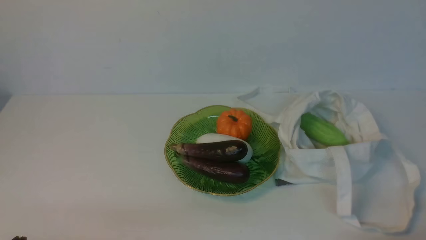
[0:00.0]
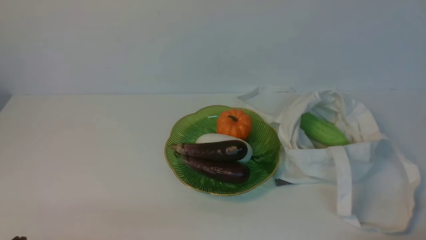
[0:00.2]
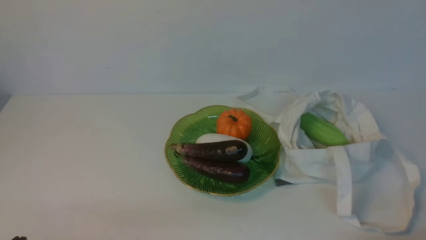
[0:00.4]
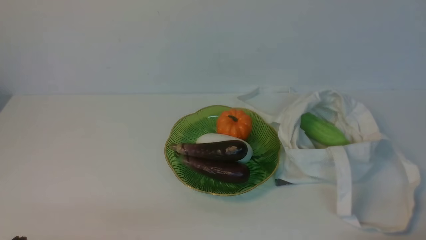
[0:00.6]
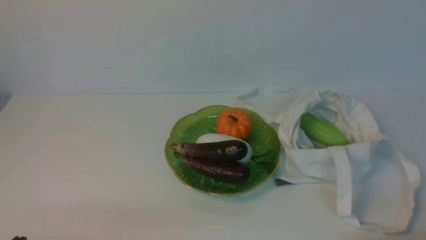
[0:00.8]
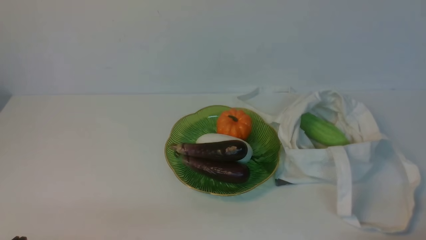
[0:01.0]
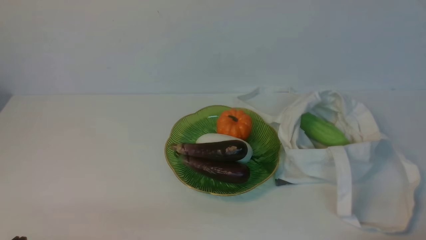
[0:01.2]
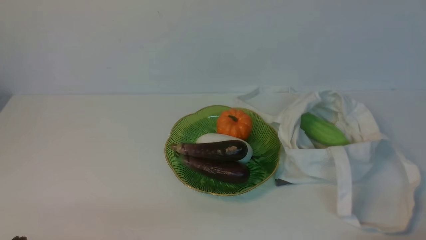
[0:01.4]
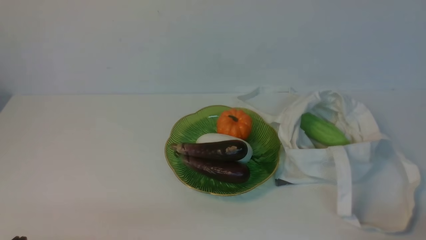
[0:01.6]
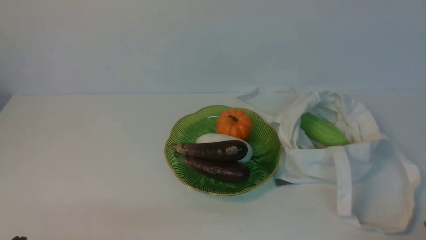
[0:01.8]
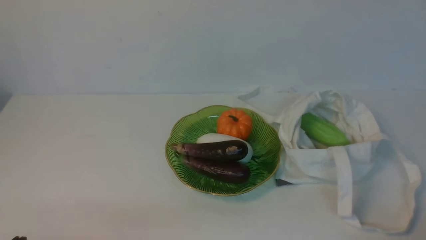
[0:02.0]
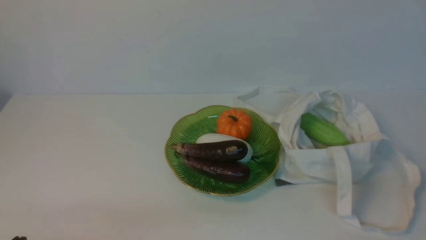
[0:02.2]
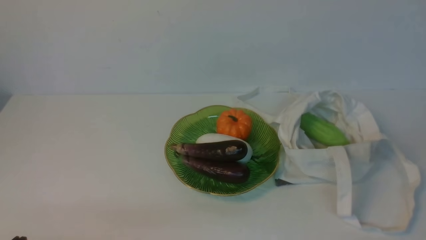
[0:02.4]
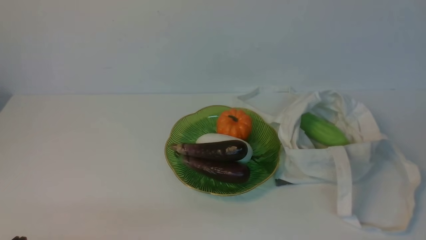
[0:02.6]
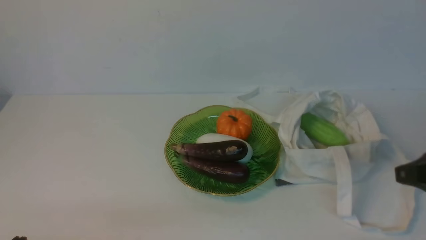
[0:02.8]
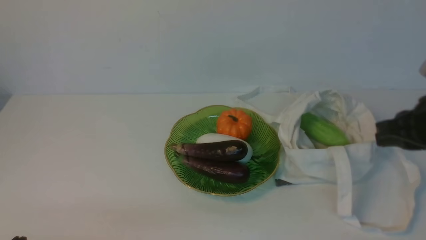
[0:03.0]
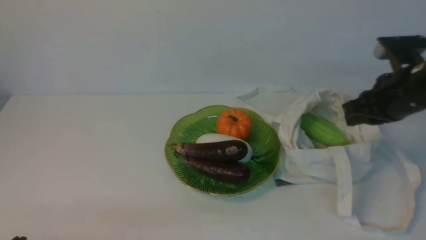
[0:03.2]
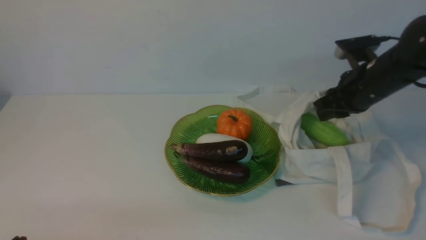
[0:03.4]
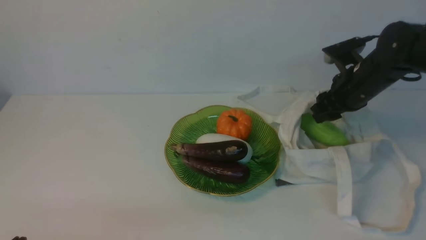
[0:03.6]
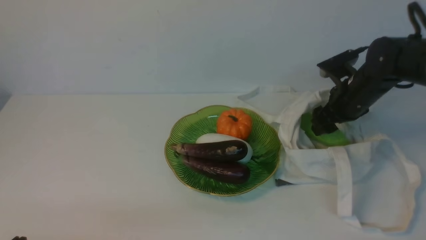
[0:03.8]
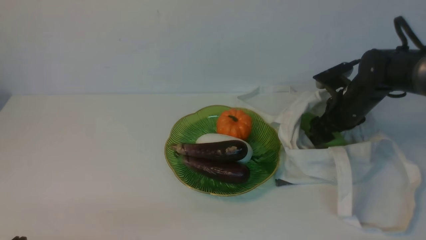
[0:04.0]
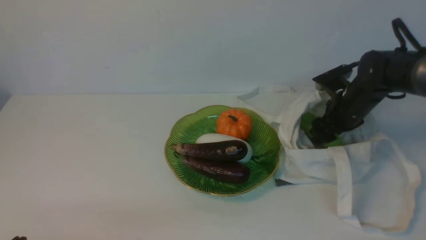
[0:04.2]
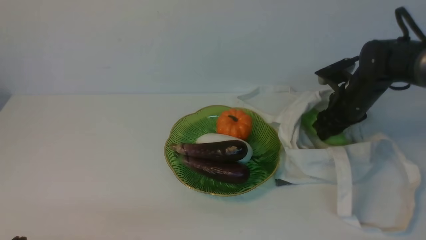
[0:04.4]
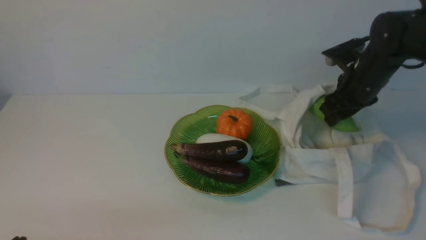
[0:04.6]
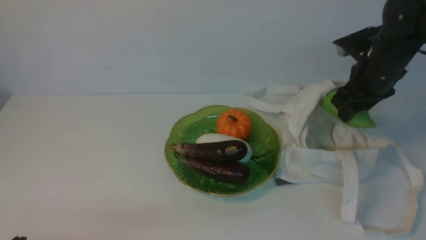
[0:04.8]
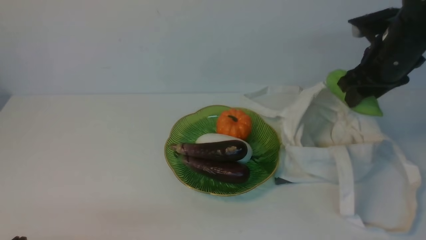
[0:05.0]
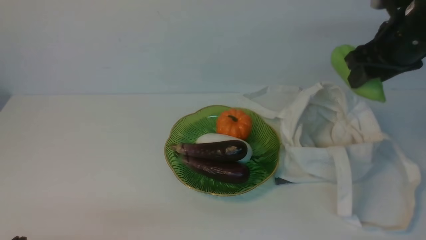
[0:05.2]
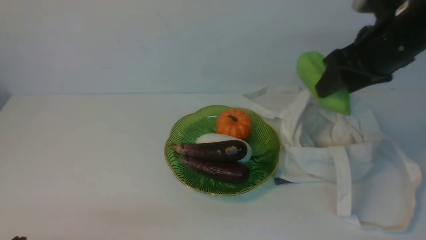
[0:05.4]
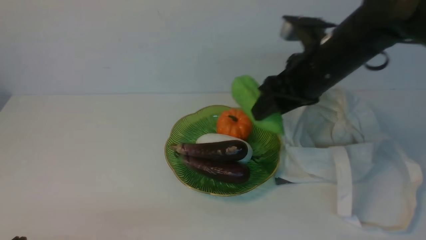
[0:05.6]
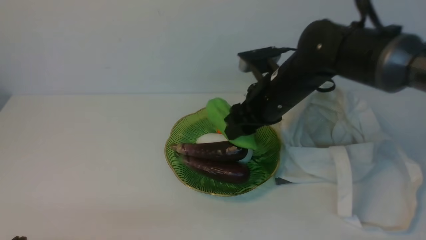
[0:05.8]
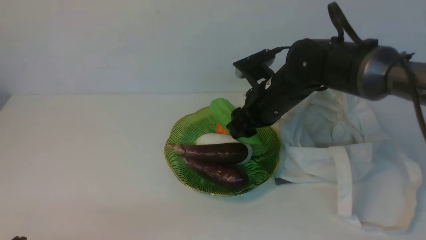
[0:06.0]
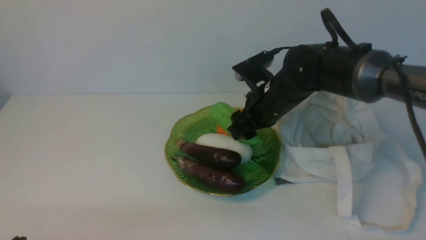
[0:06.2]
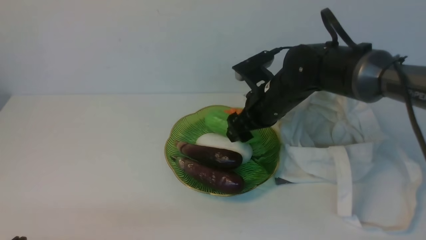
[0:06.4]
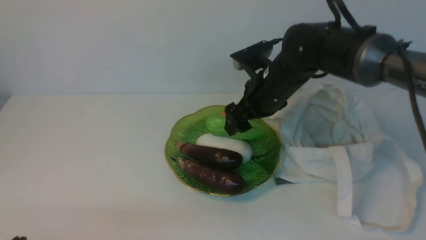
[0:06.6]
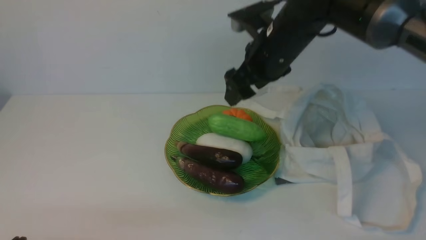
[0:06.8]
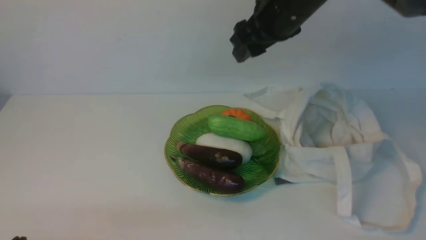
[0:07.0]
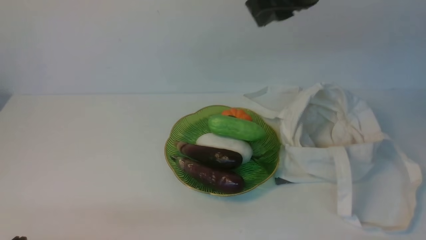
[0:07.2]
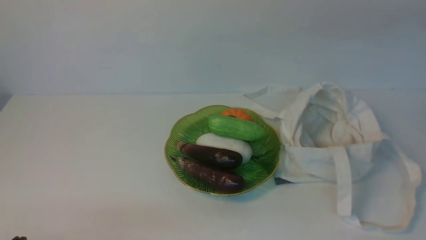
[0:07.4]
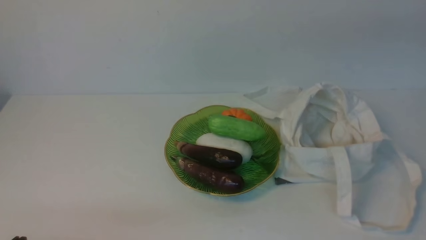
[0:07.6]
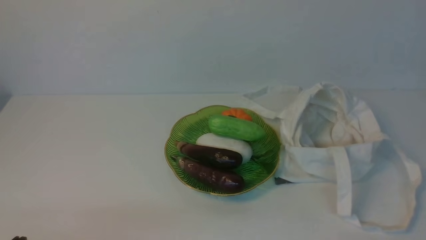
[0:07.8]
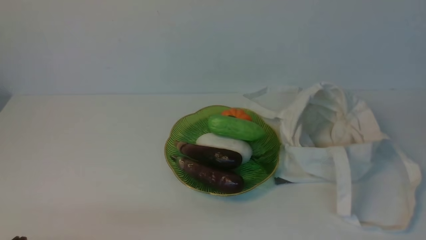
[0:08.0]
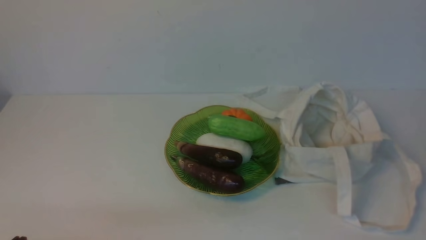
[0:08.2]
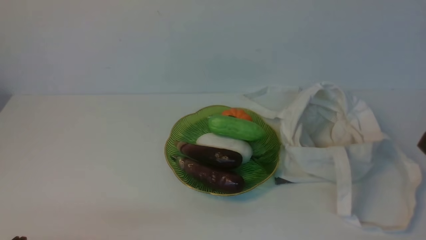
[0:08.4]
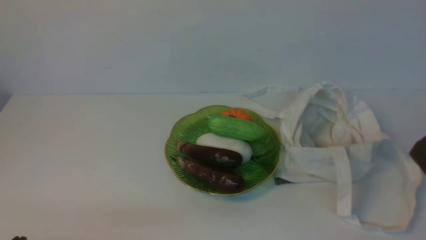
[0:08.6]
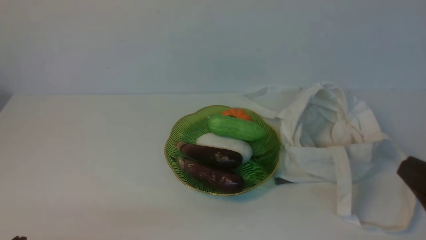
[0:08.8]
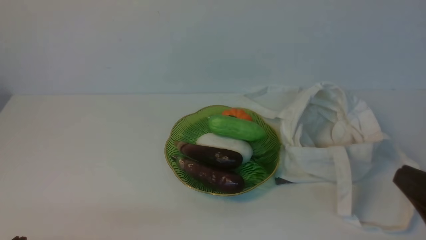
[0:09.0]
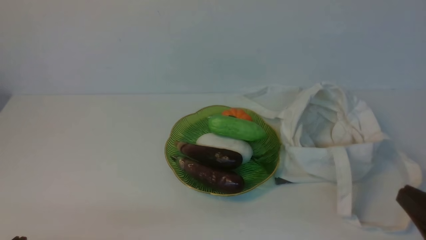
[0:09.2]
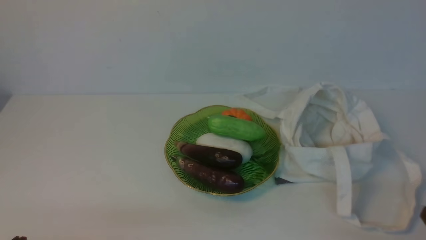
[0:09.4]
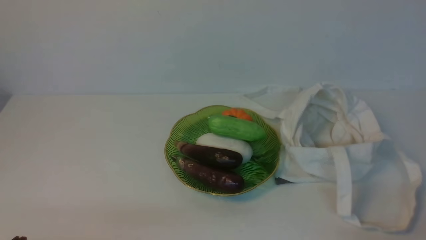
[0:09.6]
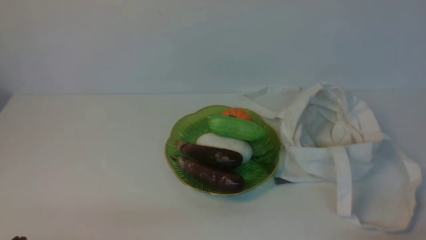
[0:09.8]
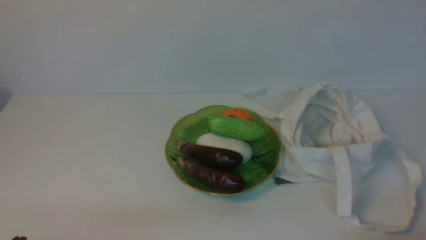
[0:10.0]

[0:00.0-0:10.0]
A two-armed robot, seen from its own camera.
Task of the whole recording: take vegetables from cloth bag on white table place on plate.
Step, 0:00.0 to 0:04.2: Grasp the bitter melon with right gripper.
Step, 0:04.4 to 0:06.6: Place the bitter melon on the plate with right gripper.
0:01.4 to 0:02.8: The right gripper heads upward and forward, covering some 15 cm.
0:02.8 to 0:04.2: The right gripper heads forward and downward, covering approximately 30 cm, and opens.
0:04.2 to 0:05.8: The right gripper is displaced to the left, upward and backward by about 15 cm.
0:05.8 to 0:07.2: The right gripper travels upward by about 15 cm, and opens, then closes again.
0:07.2 to 0:08.6: The right gripper travels backward, to the right and downward by roughly 30 cm, and closes.

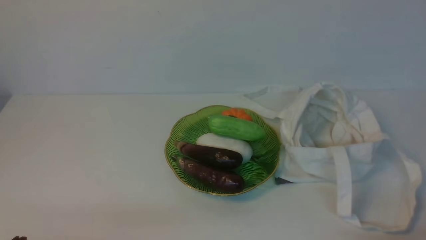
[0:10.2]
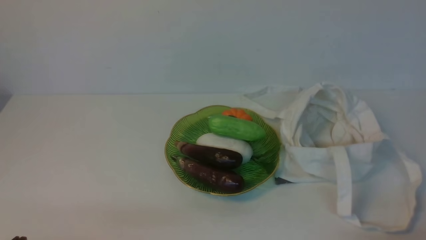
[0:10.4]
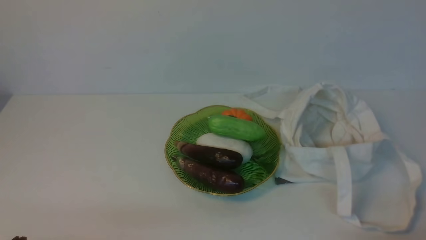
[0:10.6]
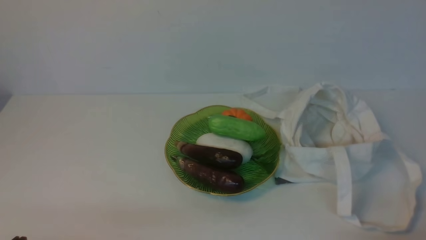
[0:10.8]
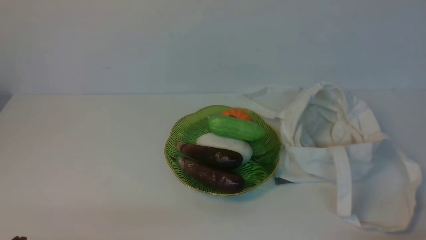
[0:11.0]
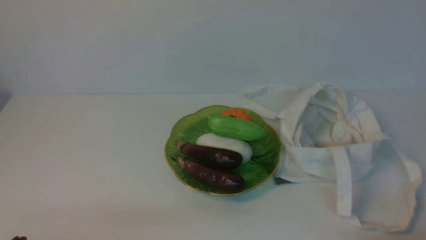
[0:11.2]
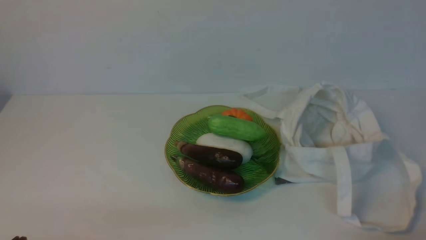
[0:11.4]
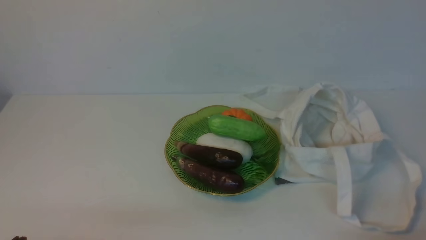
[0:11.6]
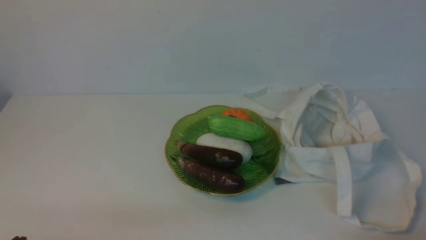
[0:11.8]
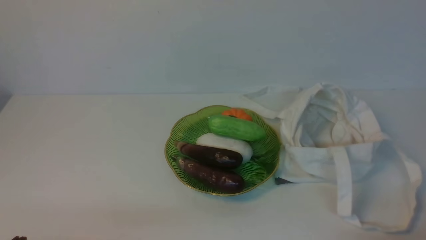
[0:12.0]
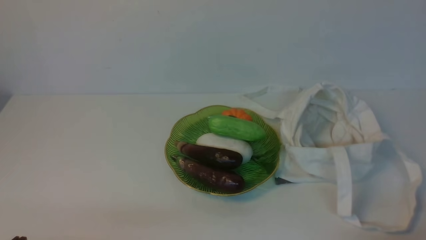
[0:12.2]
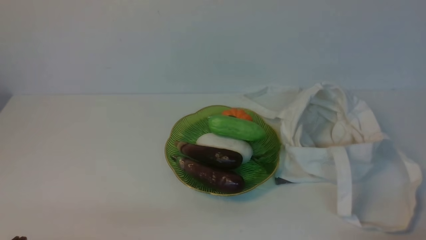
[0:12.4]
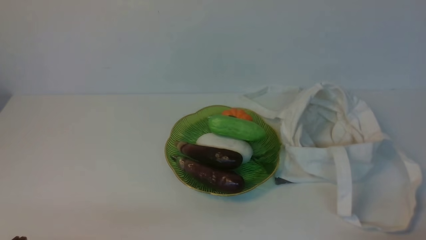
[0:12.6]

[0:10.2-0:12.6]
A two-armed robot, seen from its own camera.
Task of the whole recording: take vegetables from cloth bag on white table place on plate.
0:10.2 to 0:12.6: Both grippers stay put.

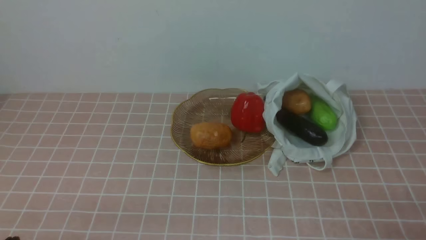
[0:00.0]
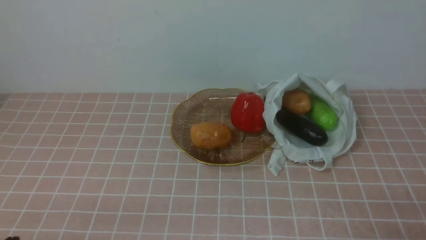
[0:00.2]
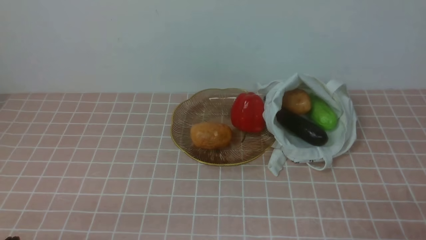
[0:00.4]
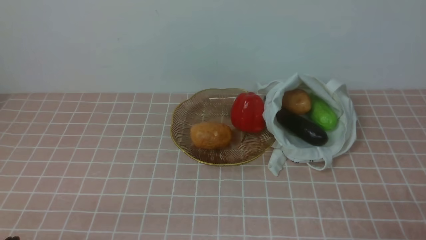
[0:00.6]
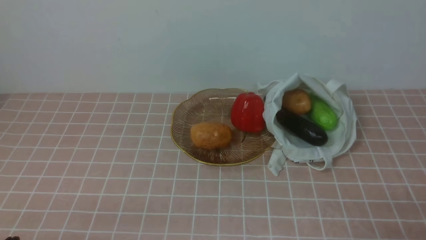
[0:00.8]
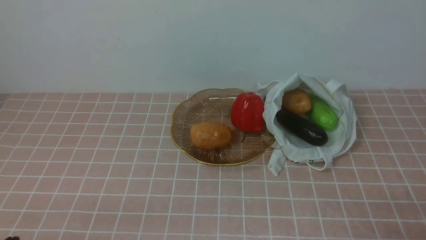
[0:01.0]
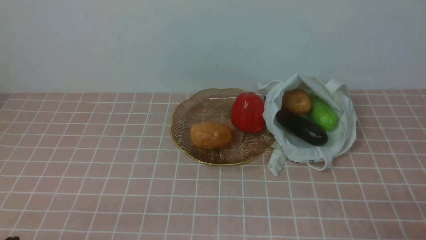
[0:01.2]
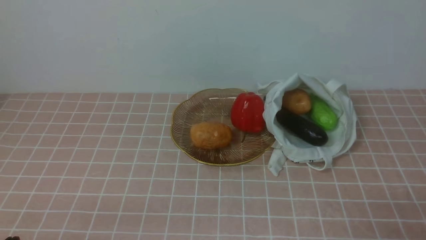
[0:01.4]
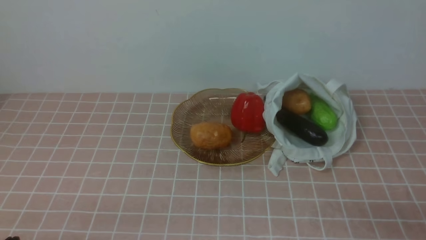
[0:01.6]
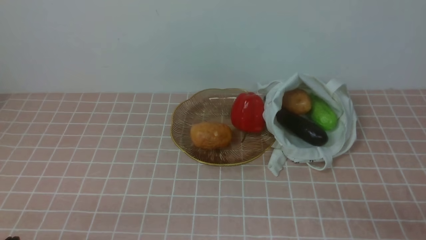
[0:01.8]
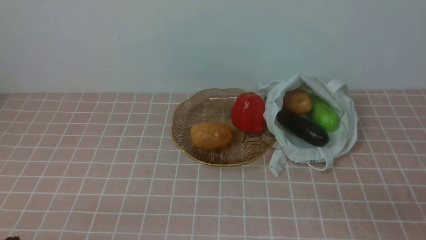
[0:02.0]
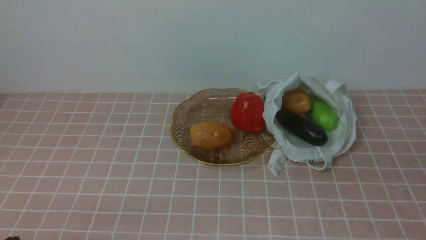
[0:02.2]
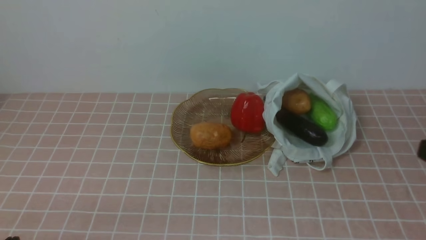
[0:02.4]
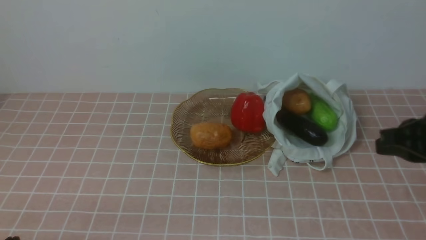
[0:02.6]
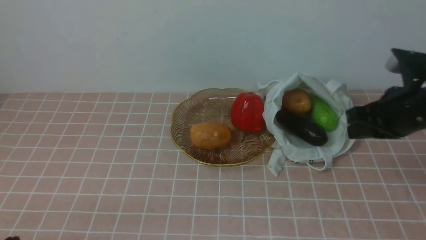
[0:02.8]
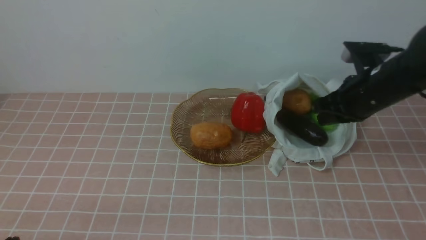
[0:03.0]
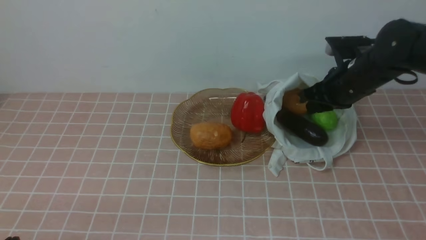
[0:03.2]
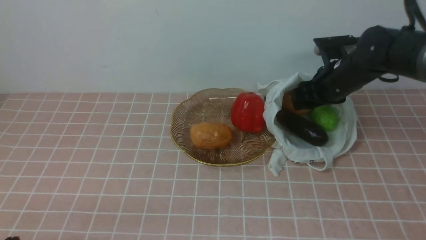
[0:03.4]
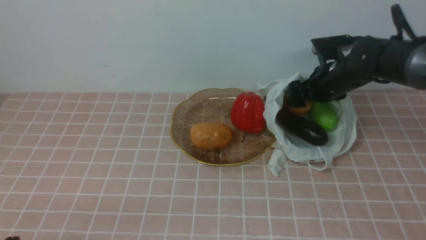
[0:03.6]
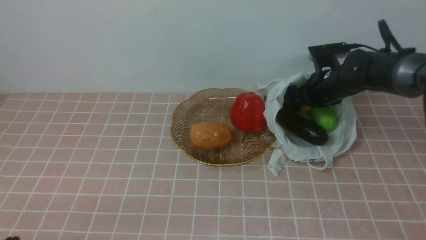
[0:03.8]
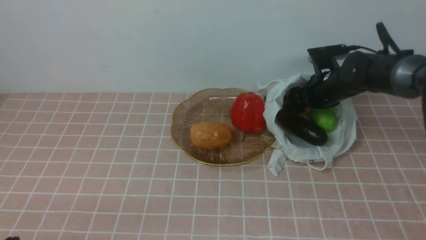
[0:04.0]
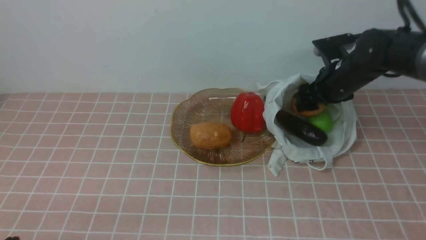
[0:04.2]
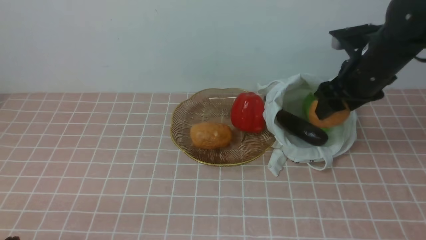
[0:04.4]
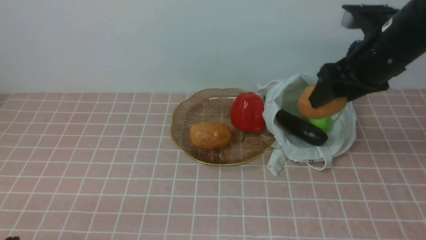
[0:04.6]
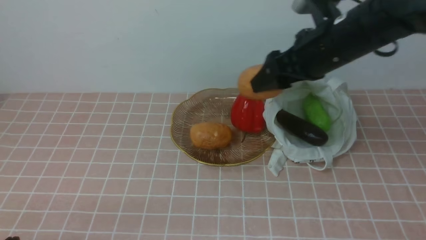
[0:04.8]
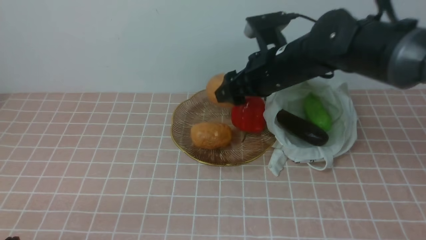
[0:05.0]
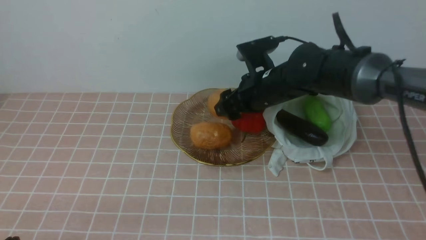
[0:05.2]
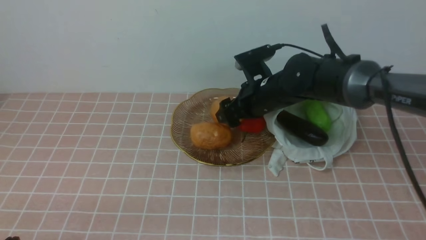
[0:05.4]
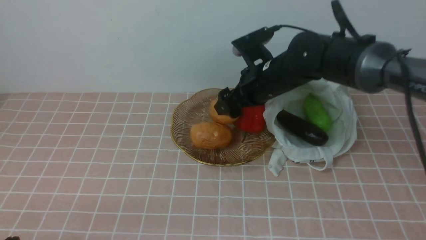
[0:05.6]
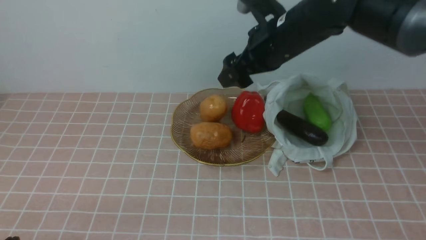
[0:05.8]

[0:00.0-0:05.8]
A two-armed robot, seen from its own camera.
Task of the whole recording: take vegetables from bag on pink coffee tablecloth place on plate.
Step, 0:00.0 to 0:04.0: Grasp the potato with right gripper.
Step, 0:04.2 to 0:05.8: Place the potato on the plate with right gripper.
0:01.4 to 0:02.8: The right gripper travels forward and upward by some 25 cm.
0:02.8 to 0:04.4: The right gripper moves forward, approximately 15 cm, and opens its fingers.
0:04.4 to 0:05.8: The right gripper travels to the left by approximately 15 cm.
